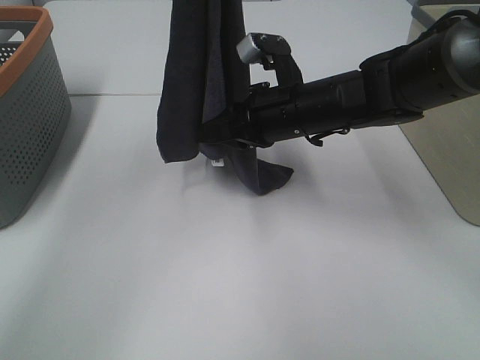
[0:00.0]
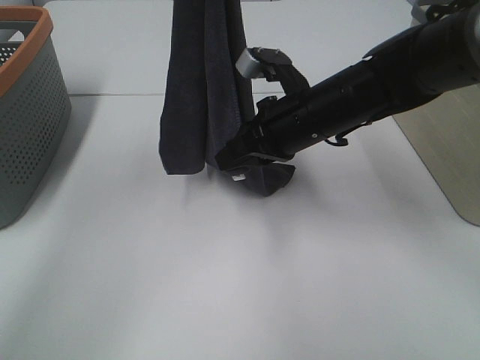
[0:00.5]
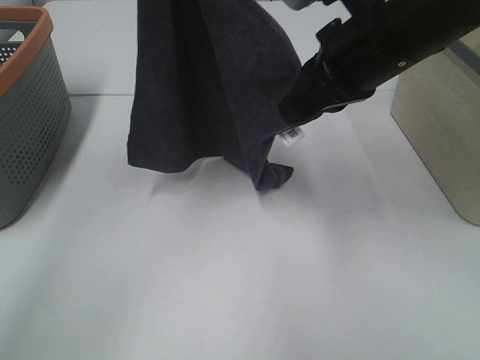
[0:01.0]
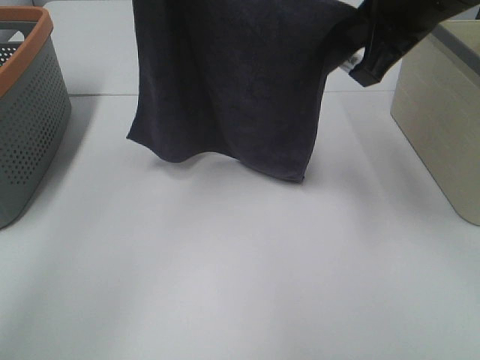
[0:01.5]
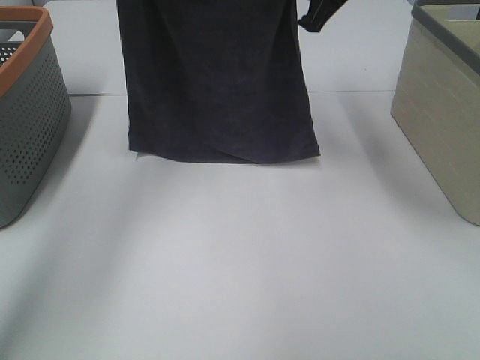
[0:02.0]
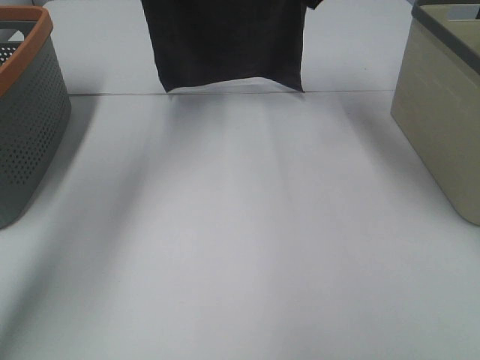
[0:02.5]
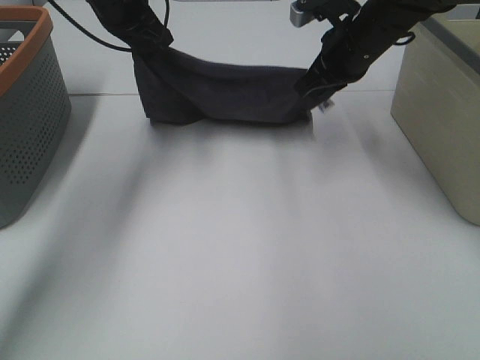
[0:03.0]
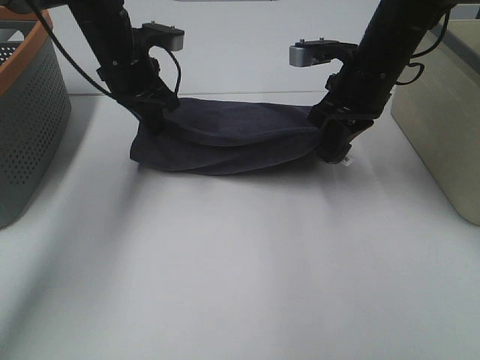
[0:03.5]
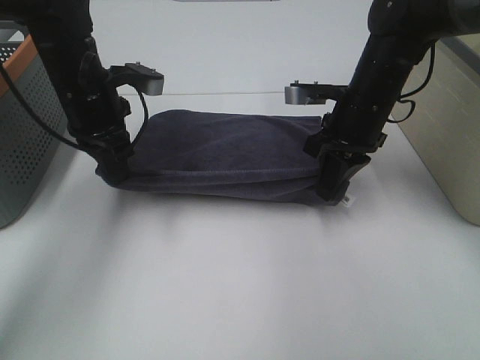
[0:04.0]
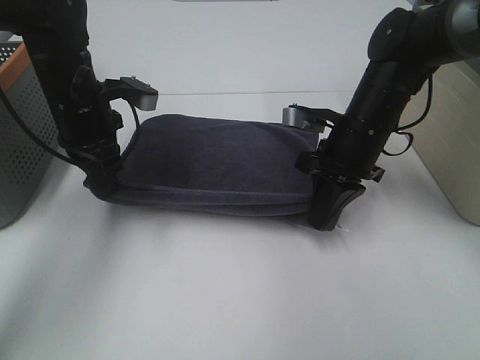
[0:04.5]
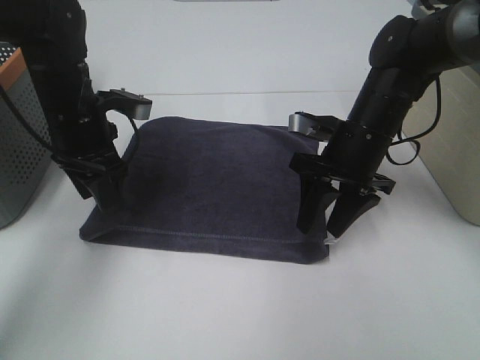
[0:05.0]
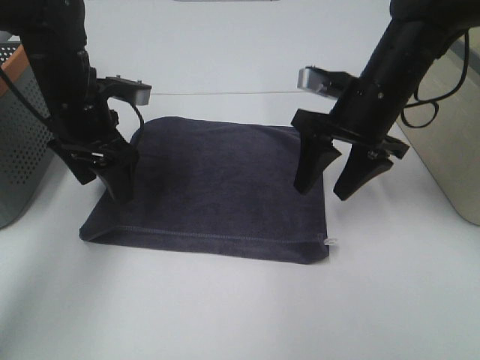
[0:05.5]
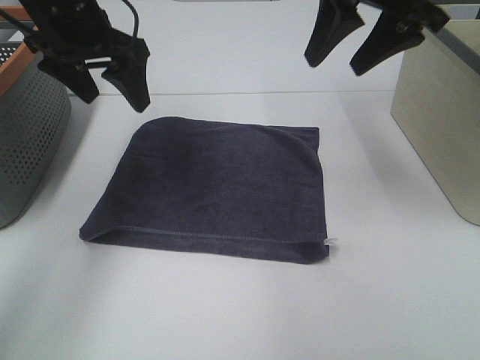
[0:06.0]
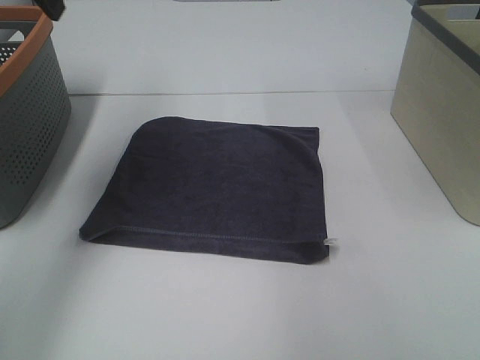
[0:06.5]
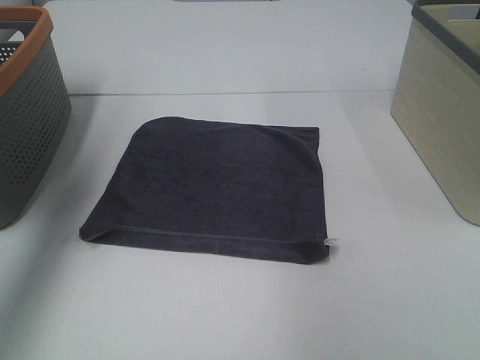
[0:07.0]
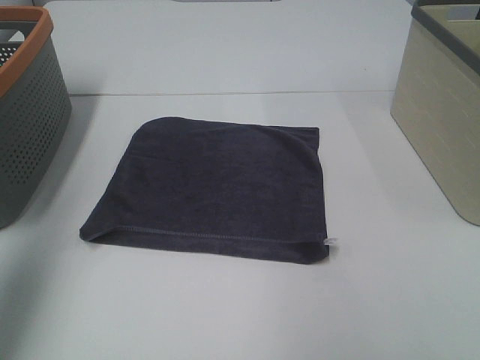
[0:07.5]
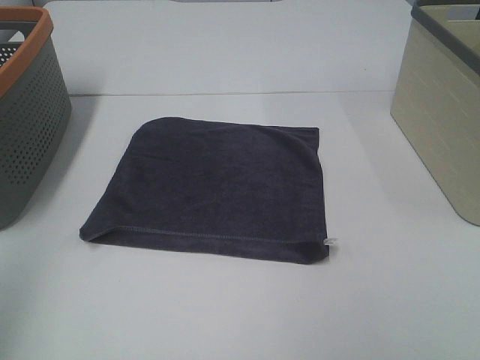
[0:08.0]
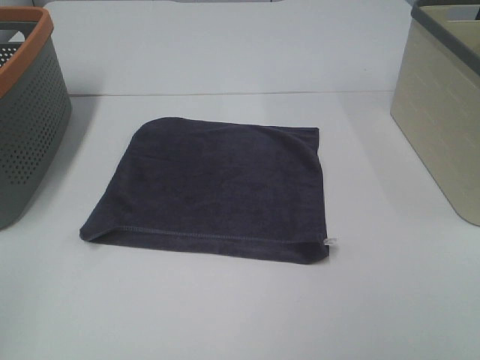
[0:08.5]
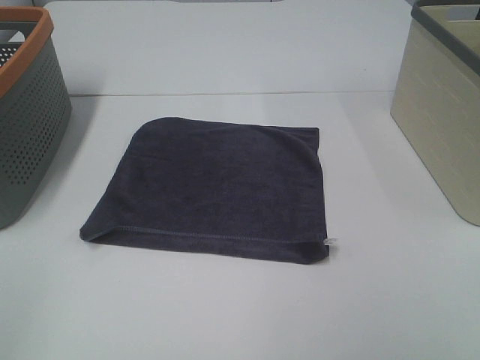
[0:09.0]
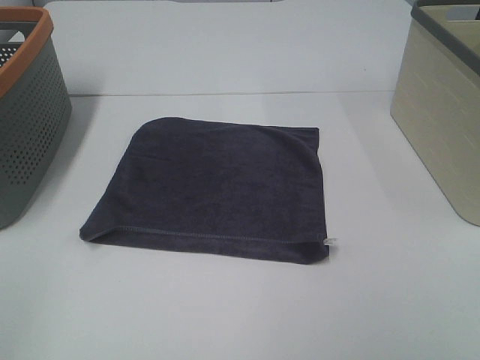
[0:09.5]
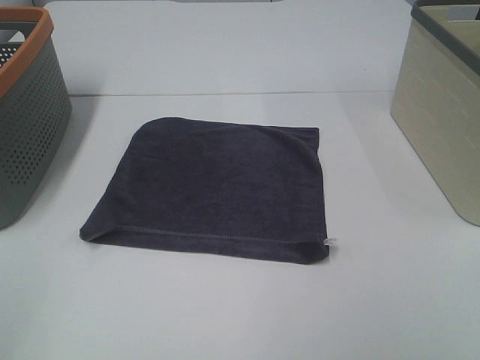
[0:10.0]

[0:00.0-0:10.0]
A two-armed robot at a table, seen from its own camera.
Task of the whole recording: Remove the towel and place it.
0.0 to 2.0 s: The left gripper goes some 15 cm forward, to the left and downward. Meanwhile the right gripper travels upward by roughly 15 cm.
2.0 to 4.0 s: The right gripper heads downward, covering some 15 cm, while the left gripper is displaced downward and backward by roughly 20 cm.
4.0 to 6.0 s: The left gripper is displaced upward by some 10 cm, and opens its fingers; the right gripper moves upward, roughly 20 cm, and opens.
6.0 to 8.0 s: The left gripper moves backward and to the left, approximately 35 cm. Meanwhile the right gripper is displaced backward by approximately 35 cm.
8.0 to 10.0 s: The left gripper goes roughly 10 cm backward and downward.

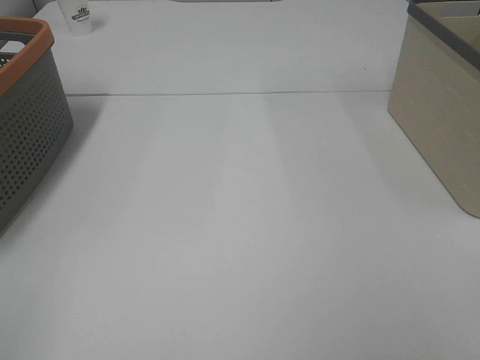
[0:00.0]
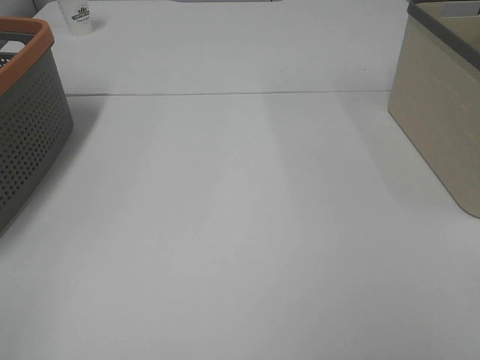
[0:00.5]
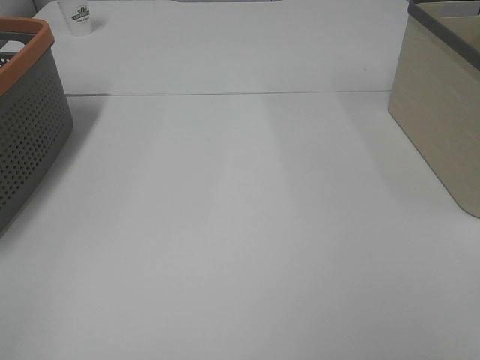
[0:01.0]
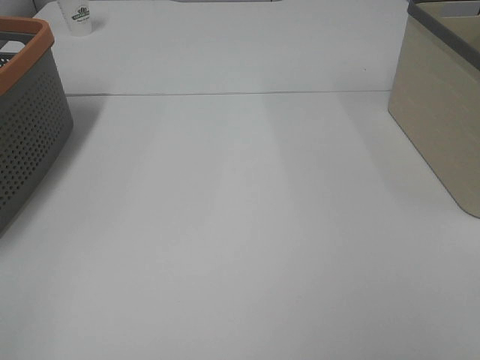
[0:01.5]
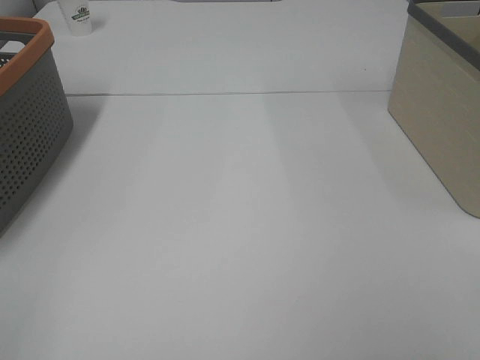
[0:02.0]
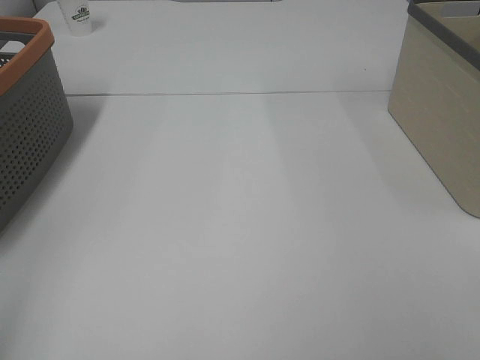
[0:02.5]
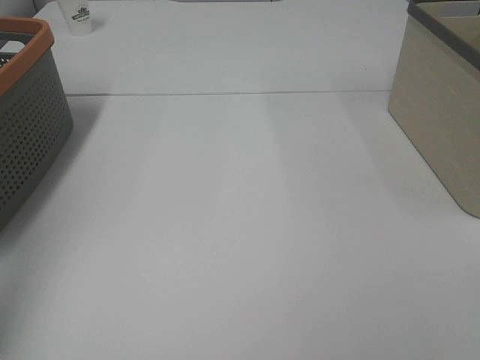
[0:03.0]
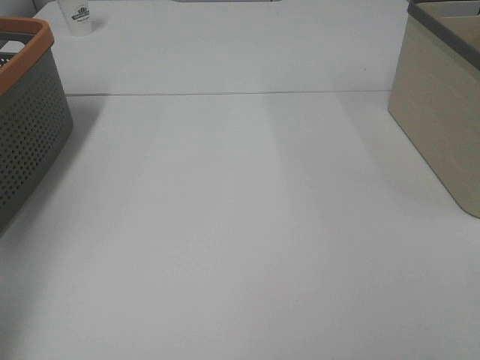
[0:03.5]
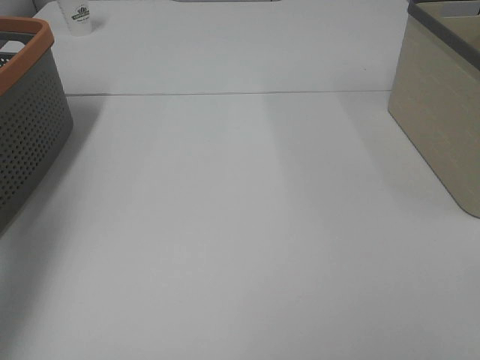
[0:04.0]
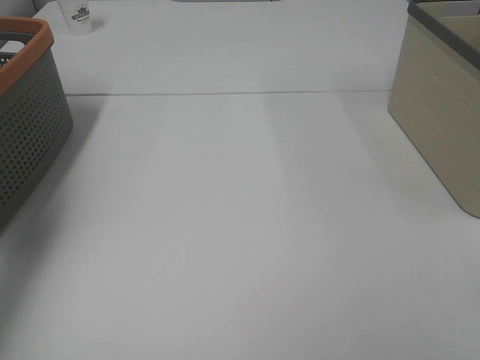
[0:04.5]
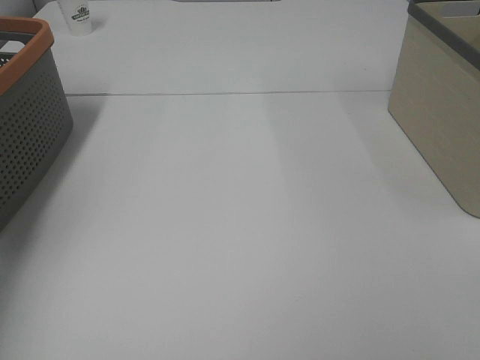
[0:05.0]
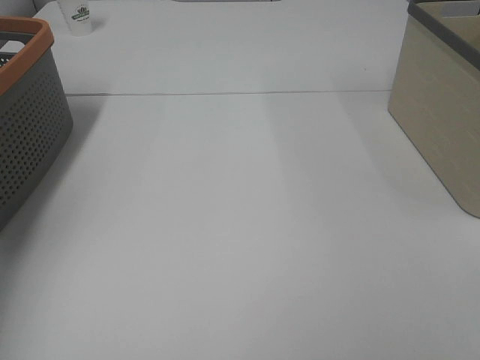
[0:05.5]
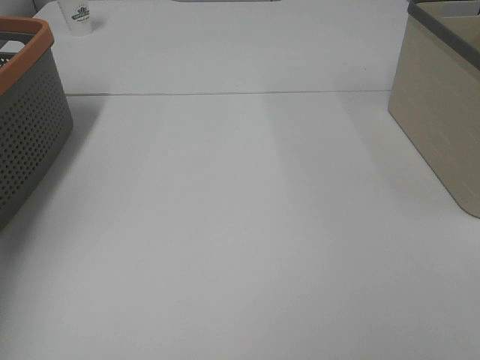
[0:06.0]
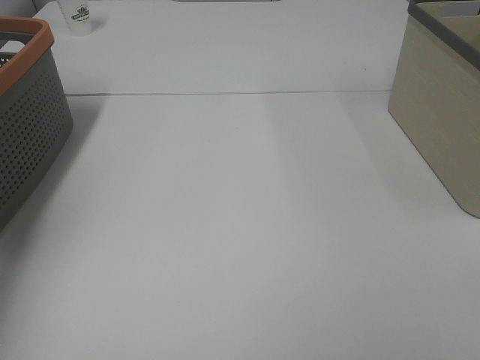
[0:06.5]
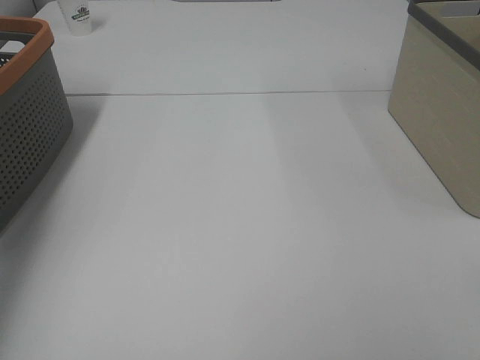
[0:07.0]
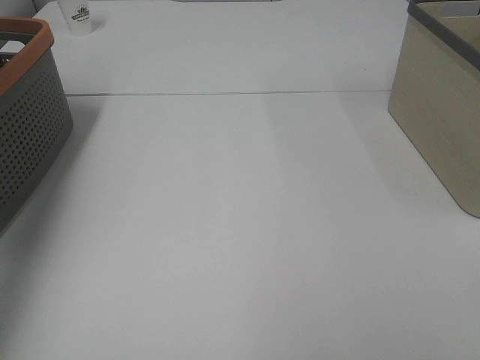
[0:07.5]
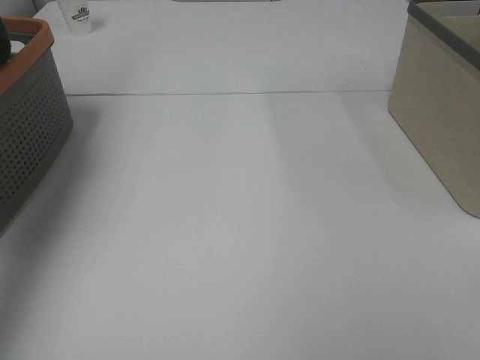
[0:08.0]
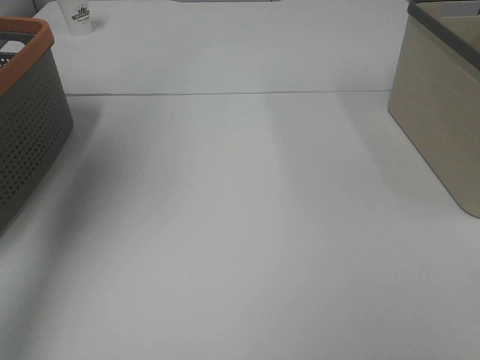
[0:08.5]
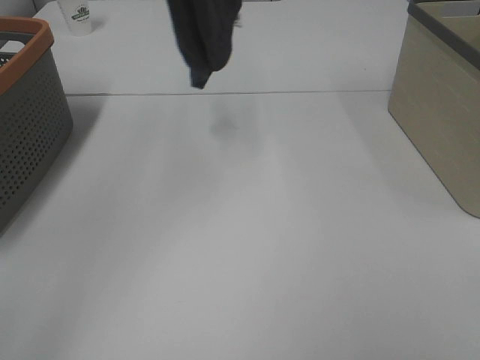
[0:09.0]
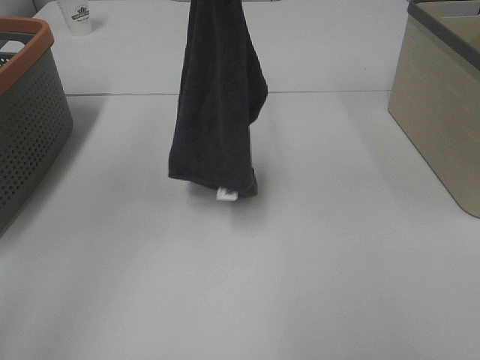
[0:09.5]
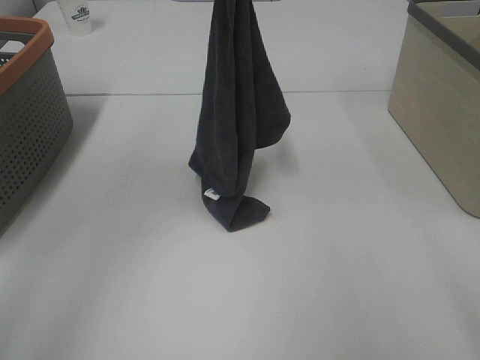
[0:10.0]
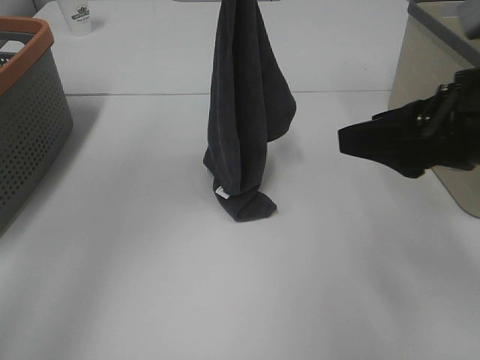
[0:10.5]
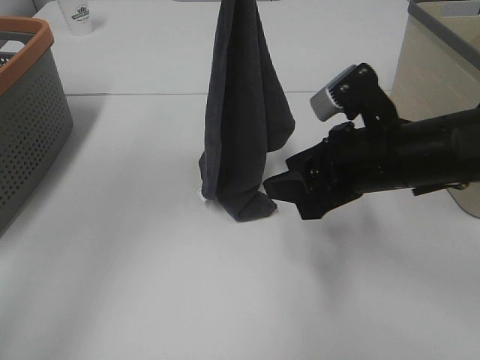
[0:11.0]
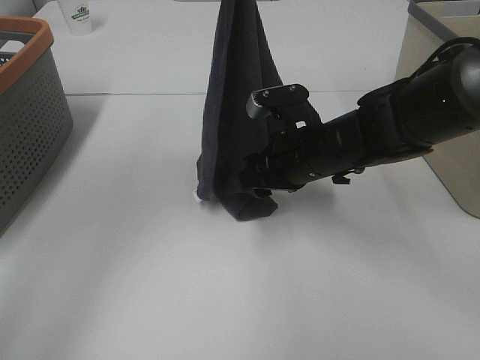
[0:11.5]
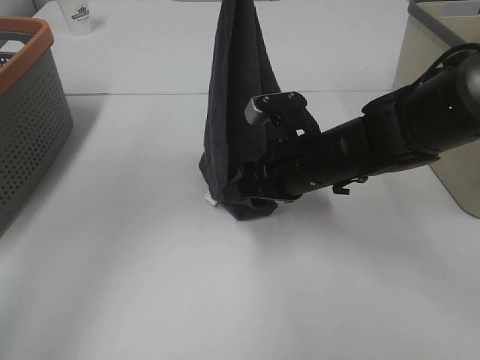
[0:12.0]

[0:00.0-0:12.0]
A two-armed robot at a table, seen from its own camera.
Task of the whole recording: Remove the towel and place it.
0.0 to 2.0 s: Neither gripper changes place.
2.0 to 4.0 s: The left gripper moves forward, roughly 30 cm.
4.0 to 6.0 s: The left gripper shifts some 15 cm downward and forward, and closes up.
6.0 to 8.0 s: The left gripper goes about 35 cm upward.
8.0 to 10.0 s: The left gripper travels to the right and downward by roughly 30 cm; the right gripper goes roughly 5 cm forward.
10.0 to 12.0 s: The right gripper shifts approximately 35 cm forward, downward and to the left.

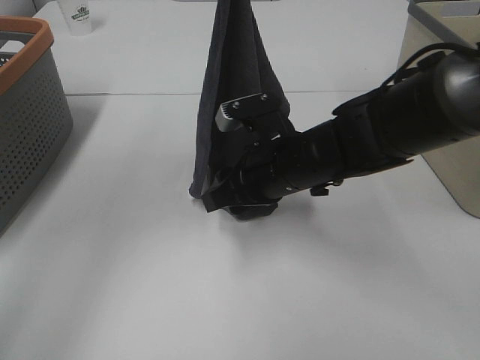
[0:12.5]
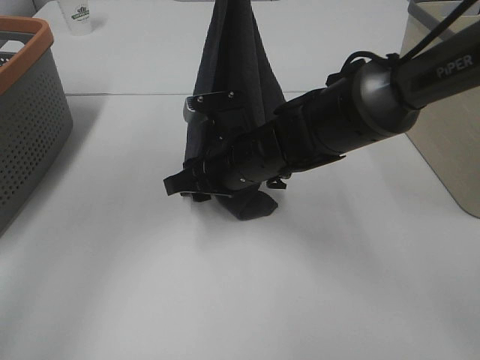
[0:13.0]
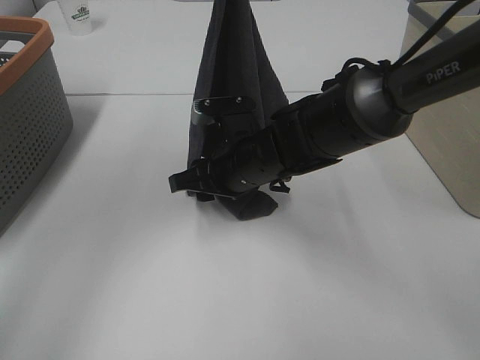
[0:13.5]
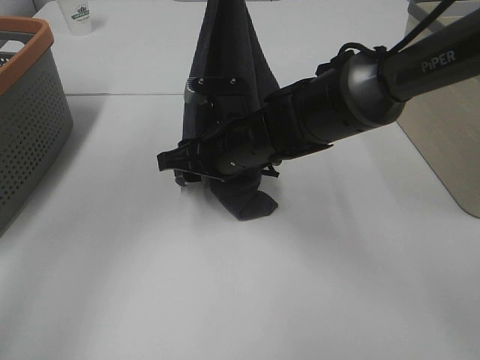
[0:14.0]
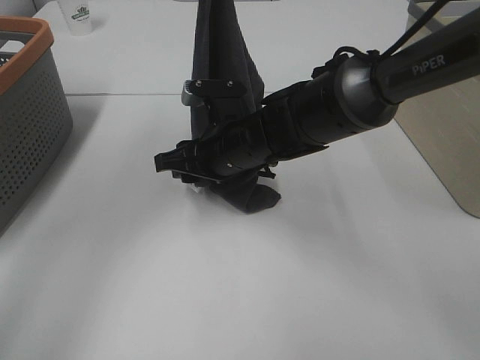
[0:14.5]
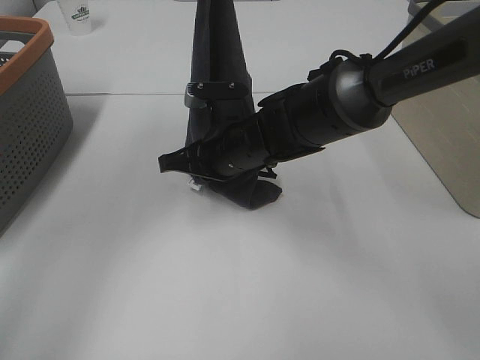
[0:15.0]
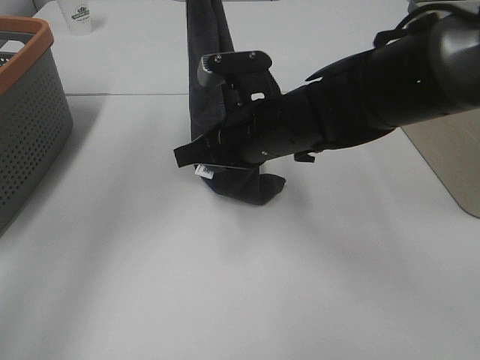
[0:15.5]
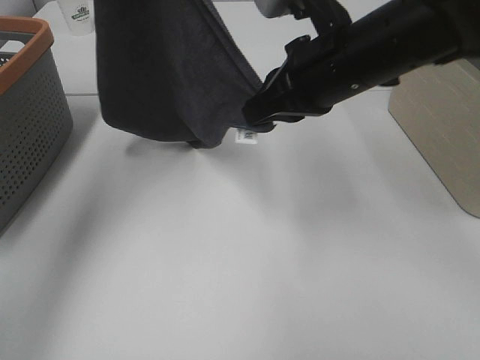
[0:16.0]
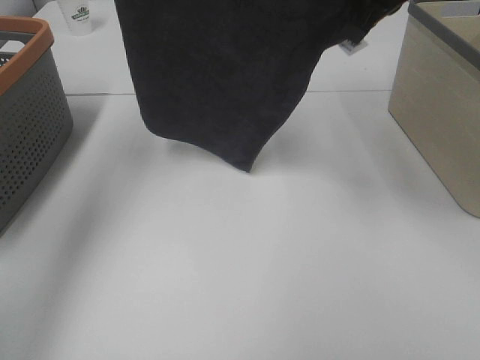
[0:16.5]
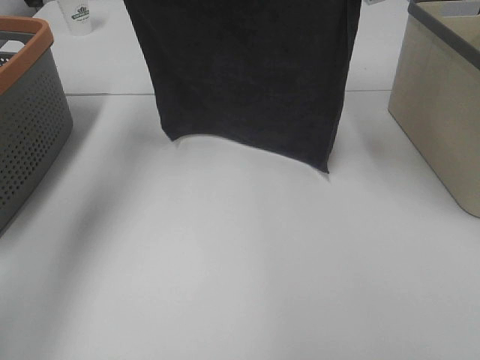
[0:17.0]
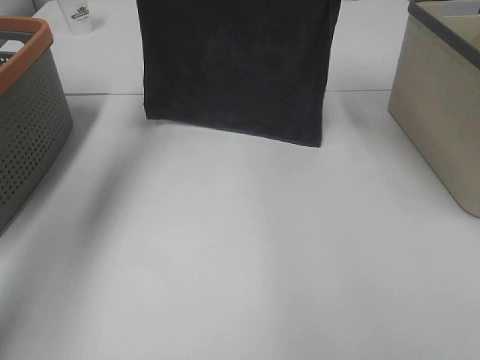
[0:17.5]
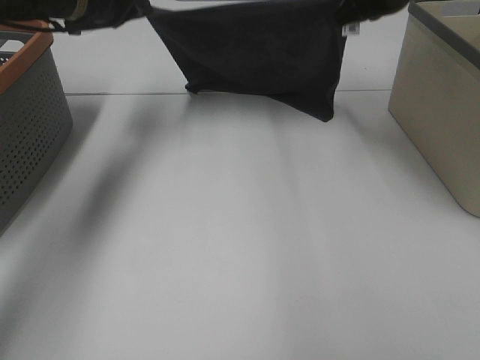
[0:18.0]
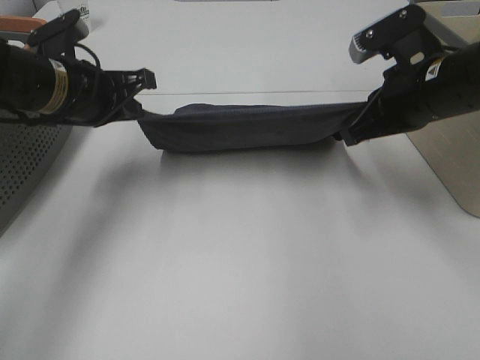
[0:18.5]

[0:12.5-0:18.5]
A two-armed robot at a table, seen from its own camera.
Task of the whole recording: Remove the towel and place it.
Step, 14.5 to 15.5 s: Left hand: spread the grey towel flat on the table.
Step, 14.5 to 15.5 s: Right hand: spread the grey towel flat on the table.
12.5 to 14.5 s: The right gripper moves to the left, some 5 cm.
14.5 to 16.5 s: The right gripper shifts roughly 25 cm upward and to the right, and closes. Meanwhile the left gripper is displaced to the left by some 10 cm.
16.5 to 18.5 s: The left gripper heads downward, covering some 20 cm, while the right gripper goes roughly 15 cm downward and to the right.
